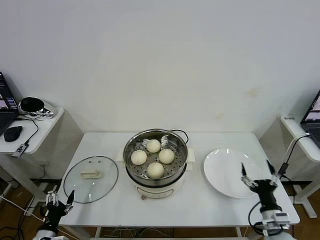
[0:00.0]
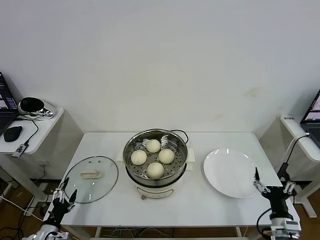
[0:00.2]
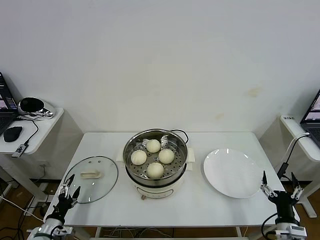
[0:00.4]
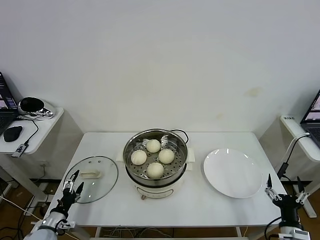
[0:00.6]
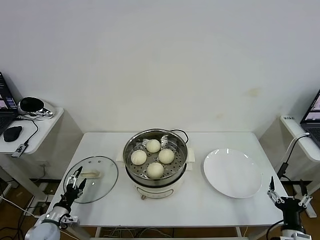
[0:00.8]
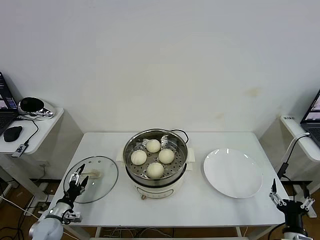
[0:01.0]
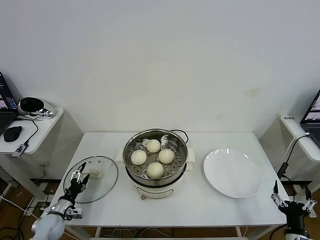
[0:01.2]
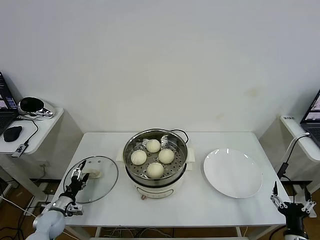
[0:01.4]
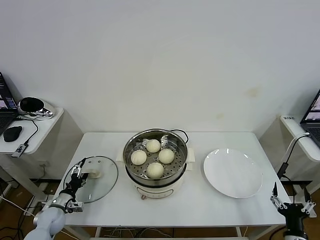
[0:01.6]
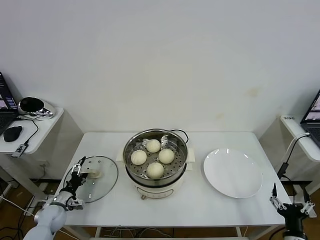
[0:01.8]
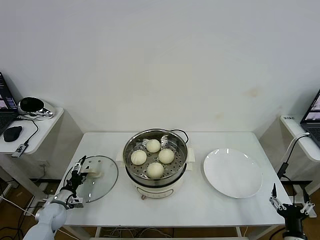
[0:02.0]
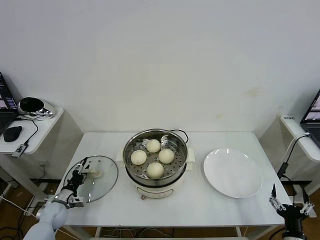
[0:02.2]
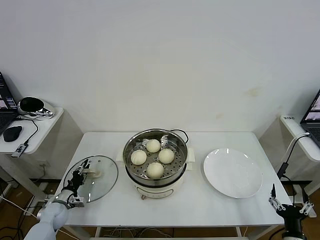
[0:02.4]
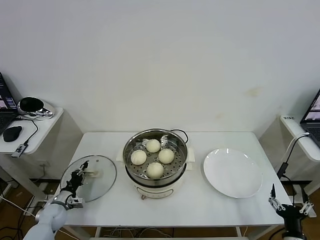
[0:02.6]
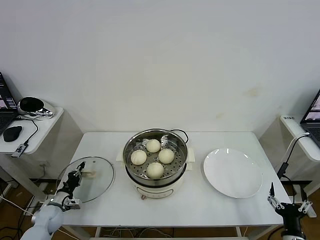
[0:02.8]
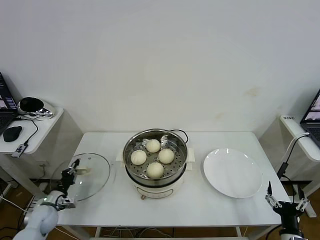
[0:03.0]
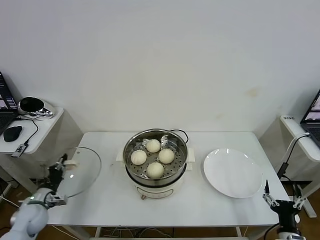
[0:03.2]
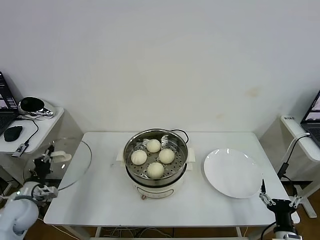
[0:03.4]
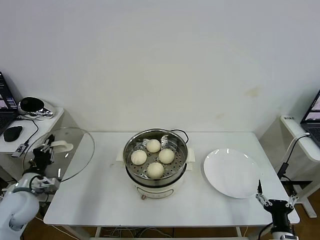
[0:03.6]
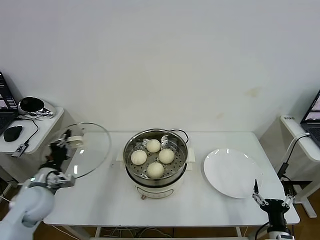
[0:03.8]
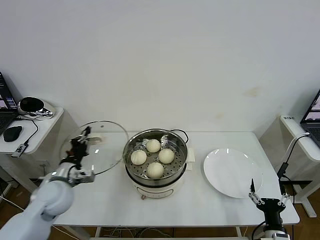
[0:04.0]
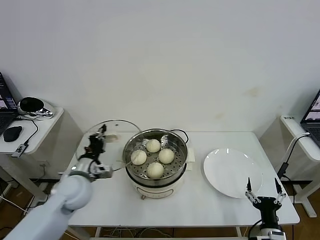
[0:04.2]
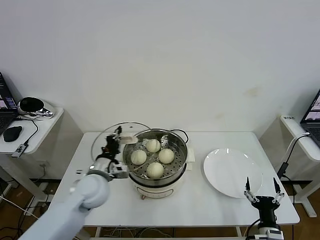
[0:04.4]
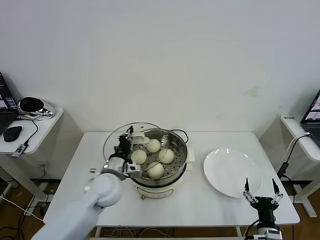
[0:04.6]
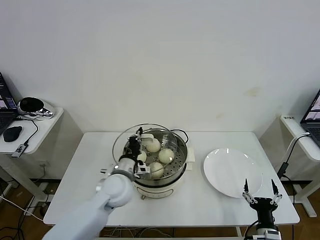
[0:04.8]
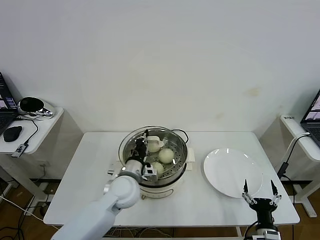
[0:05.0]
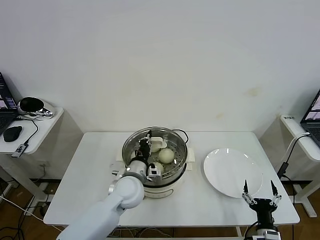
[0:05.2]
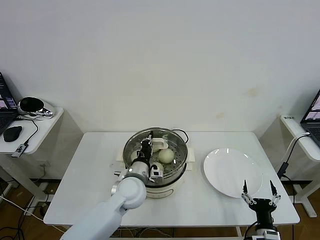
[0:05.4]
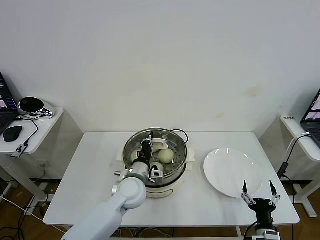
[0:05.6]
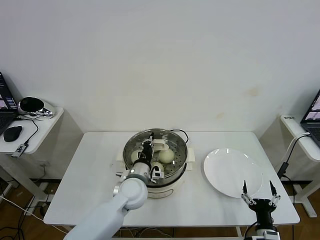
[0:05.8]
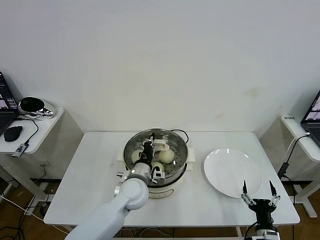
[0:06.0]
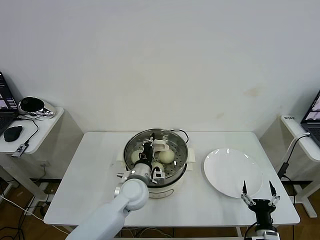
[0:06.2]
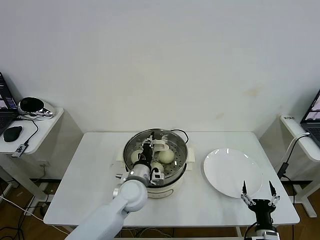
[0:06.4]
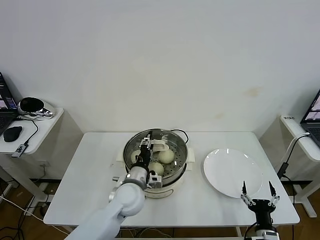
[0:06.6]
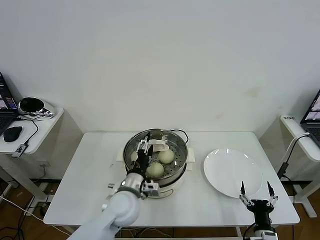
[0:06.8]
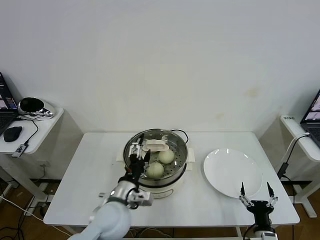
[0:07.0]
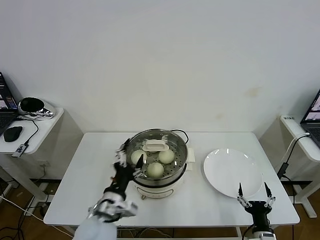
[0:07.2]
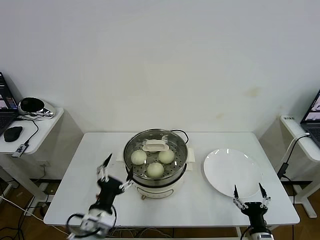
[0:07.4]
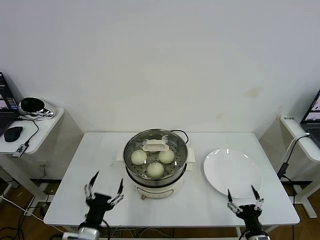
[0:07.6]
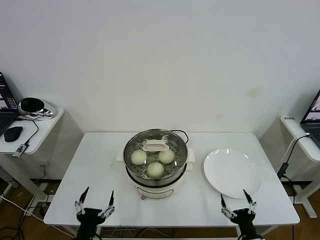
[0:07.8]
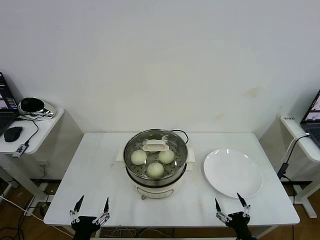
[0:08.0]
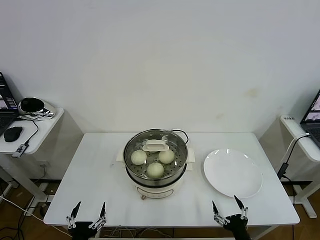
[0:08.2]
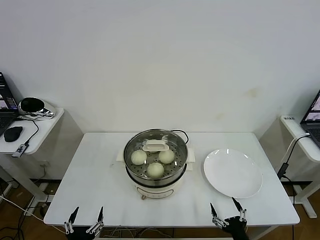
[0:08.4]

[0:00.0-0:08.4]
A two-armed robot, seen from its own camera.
Task of the whole recording: take steamed baozi put them in steamer then cover it.
Step, 0:00.0 to 0:02.8: Grasp the pot lid with left gripper.
Step, 0:03.0 to 0:06.6: Place the pot lid on the steamer with left gripper.
0:00.0 to 0:01.4: The left gripper moves forward, some 15 cm. The right gripper heads backward, covering some 5 cm.
0:01.4 to 0:02.8: The left gripper closes.
0:02.8 to 0:04.2: The left gripper shifts about 30 cm upward and to the right; the right gripper shifts by roughly 5 cm.
0:04.2 to 0:05.6: The left gripper moves to the right, roughly 20 cm.
0:05.6 to 0:07.0: The left gripper moves backward, some 10 cm, and opens.
0:07.0 to 0:08.4: The left gripper goes roughly 25 cm backward, to the left and downward, while the right gripper changes place by approximately 5 cm.
